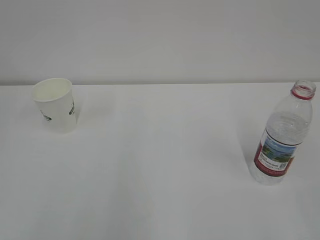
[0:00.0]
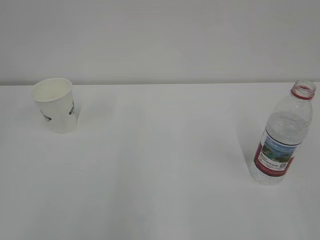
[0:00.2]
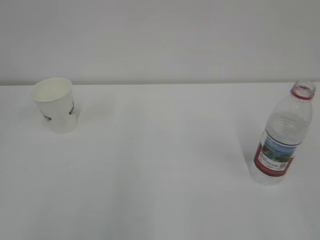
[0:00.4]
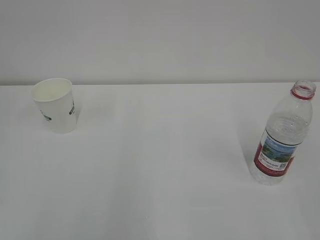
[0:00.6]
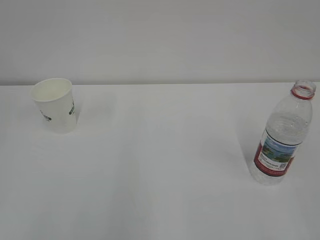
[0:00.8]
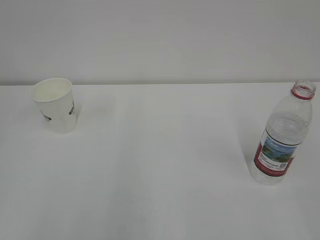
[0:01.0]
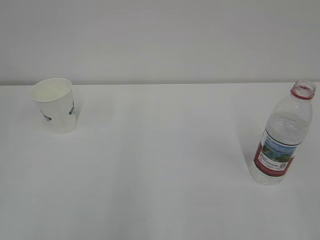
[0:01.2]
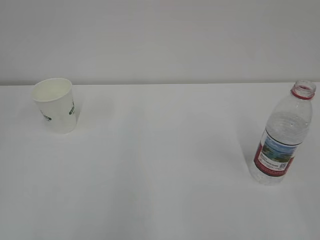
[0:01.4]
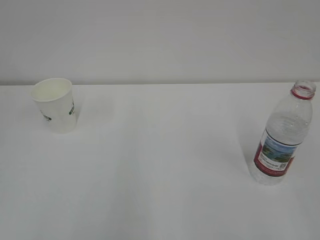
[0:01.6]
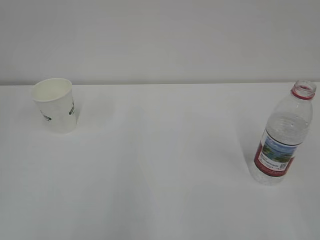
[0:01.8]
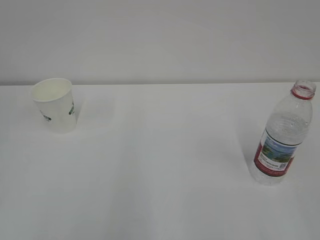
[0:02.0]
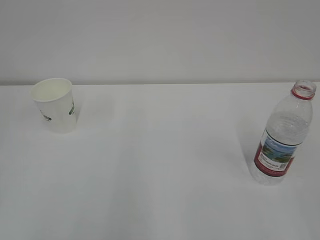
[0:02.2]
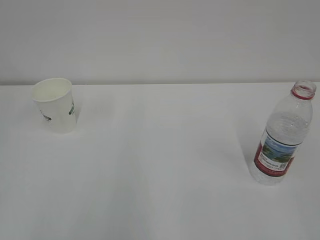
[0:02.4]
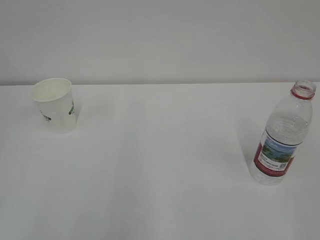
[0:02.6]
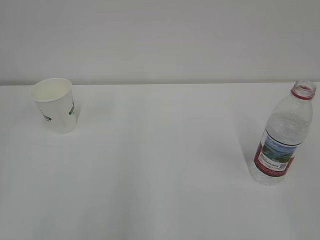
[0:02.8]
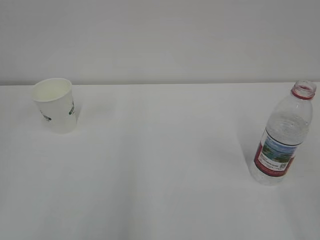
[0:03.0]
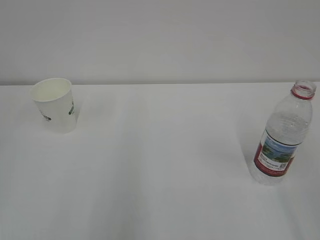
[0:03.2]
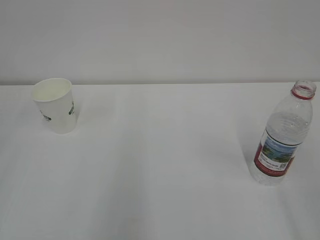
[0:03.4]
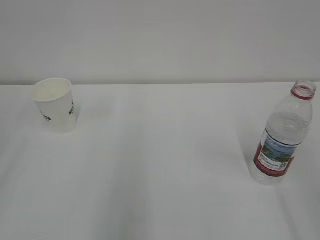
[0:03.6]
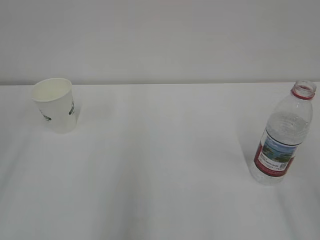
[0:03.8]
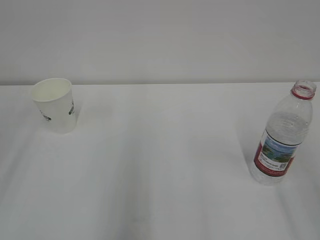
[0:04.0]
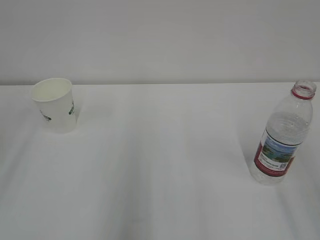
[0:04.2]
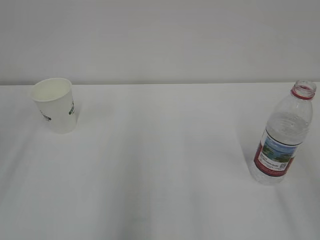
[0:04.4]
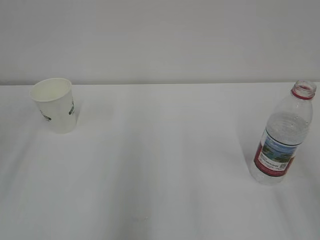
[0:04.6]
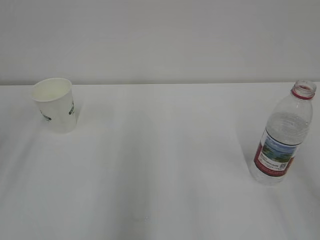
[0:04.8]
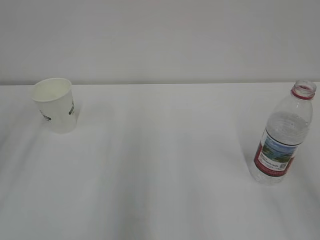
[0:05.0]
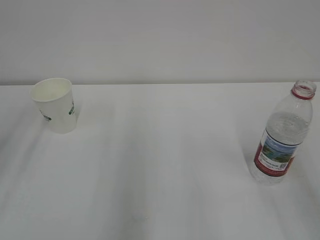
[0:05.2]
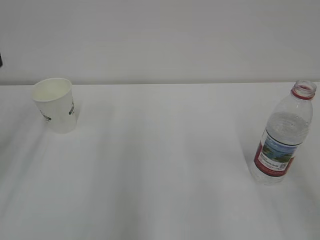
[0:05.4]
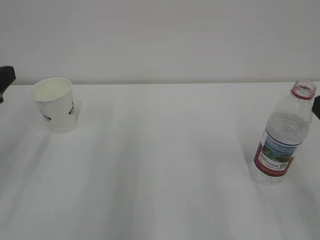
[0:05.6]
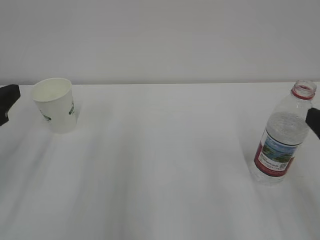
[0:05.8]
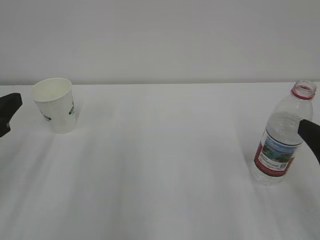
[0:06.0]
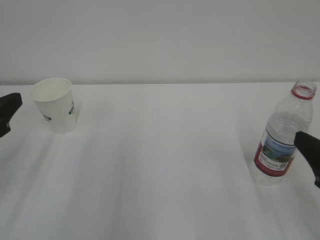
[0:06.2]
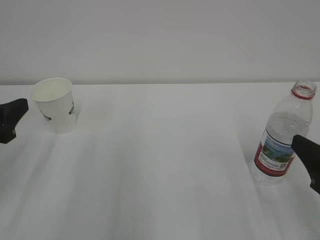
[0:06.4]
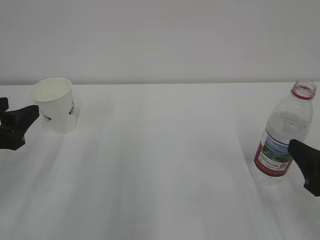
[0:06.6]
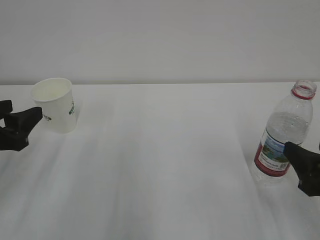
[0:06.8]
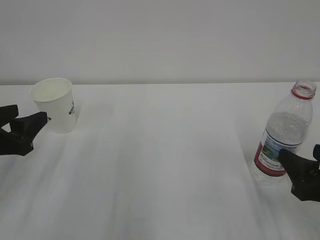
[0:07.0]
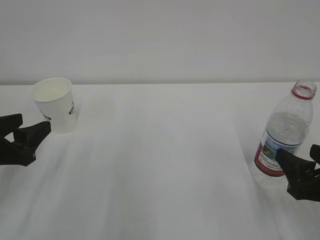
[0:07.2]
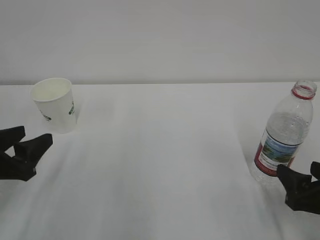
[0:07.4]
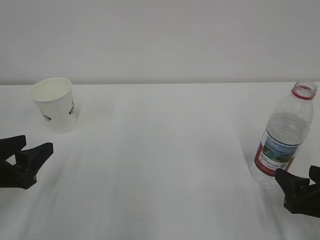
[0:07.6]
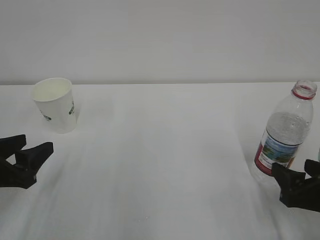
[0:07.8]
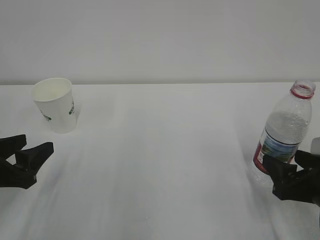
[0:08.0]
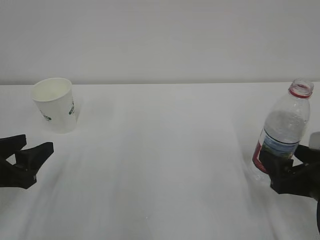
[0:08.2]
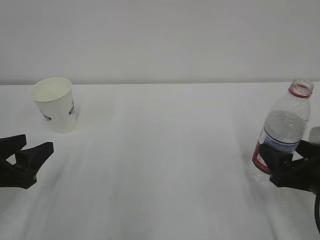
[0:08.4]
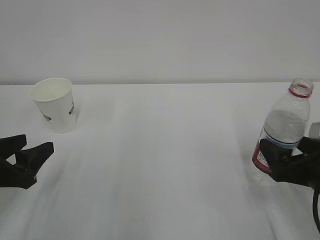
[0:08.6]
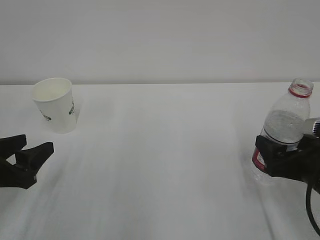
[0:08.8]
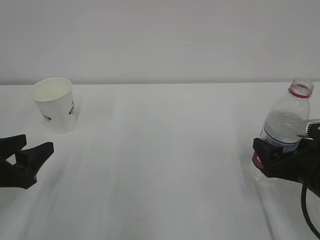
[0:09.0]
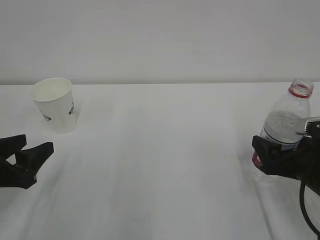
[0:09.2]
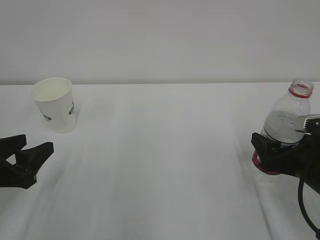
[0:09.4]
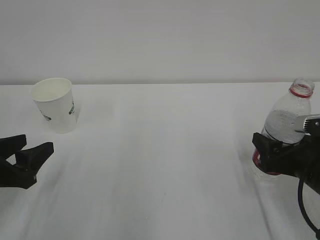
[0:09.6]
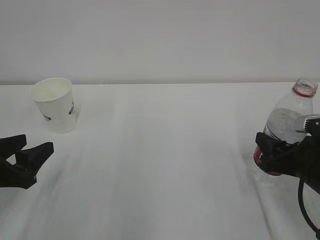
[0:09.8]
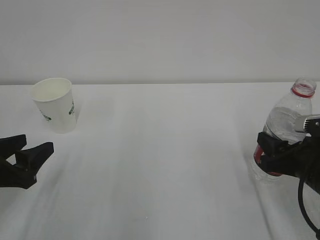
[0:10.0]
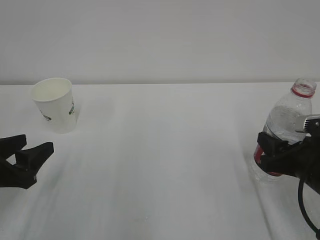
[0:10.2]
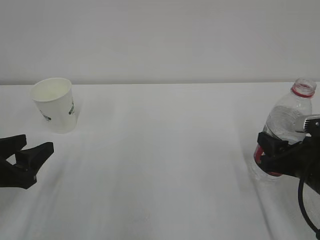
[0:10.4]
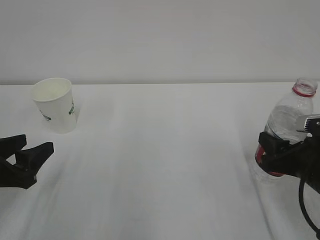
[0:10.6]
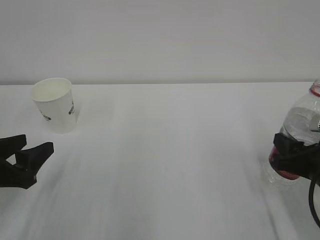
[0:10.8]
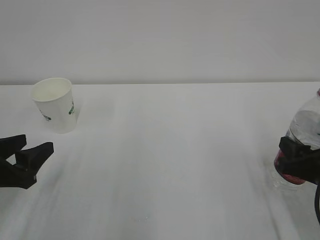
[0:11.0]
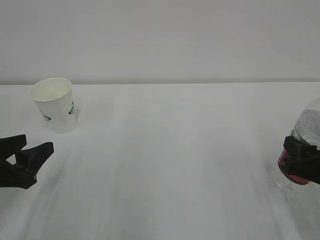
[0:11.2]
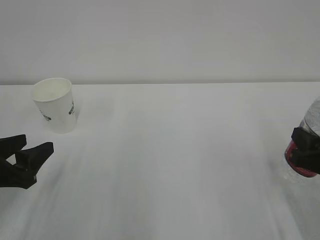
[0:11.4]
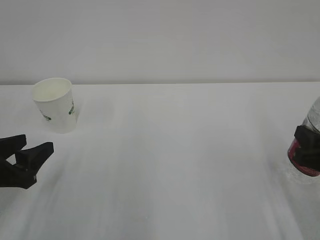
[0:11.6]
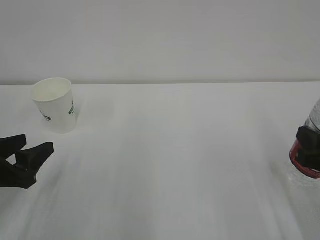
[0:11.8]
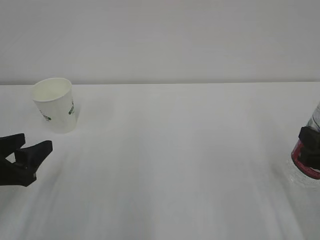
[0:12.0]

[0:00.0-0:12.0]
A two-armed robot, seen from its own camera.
0:04.4 to 0:06.0: Both grippers travel together downward and forward, approximately 15 cm.
0:06.0 to 0:07.6: The two grippers go approximately 10 cm downward.
0:07.6 to 0:09.0: The right gripper heads forward, covering approximately 5 cm.
0:09.0 to 0:10.4: The right gripper closes its fingers.
0:10.4 to 0:12.0: The right gripper changes place by some 5 cm.

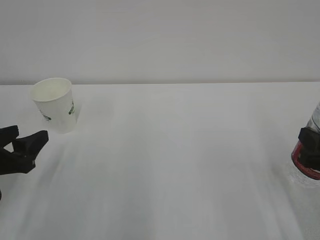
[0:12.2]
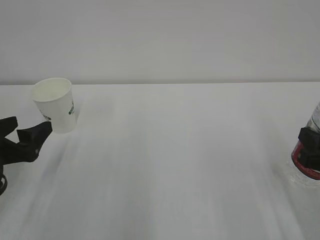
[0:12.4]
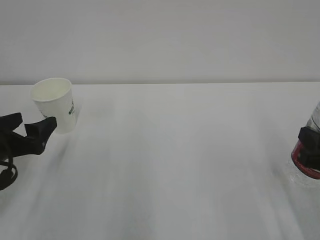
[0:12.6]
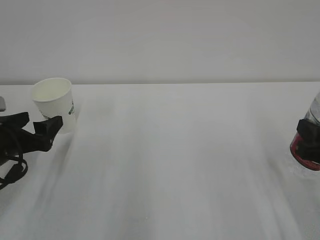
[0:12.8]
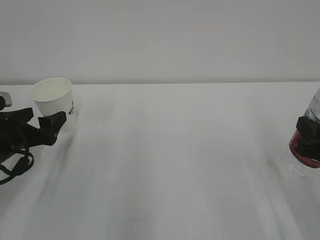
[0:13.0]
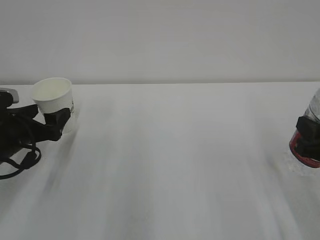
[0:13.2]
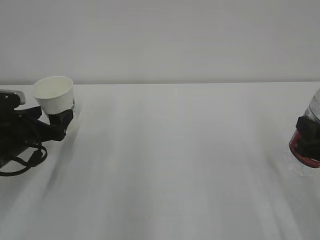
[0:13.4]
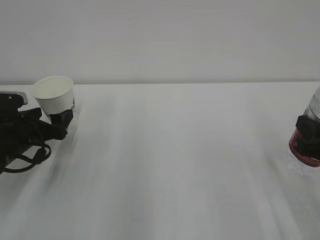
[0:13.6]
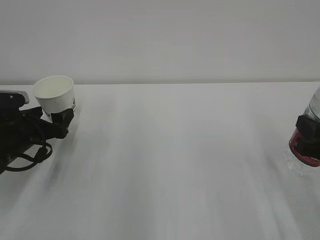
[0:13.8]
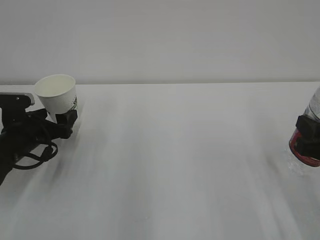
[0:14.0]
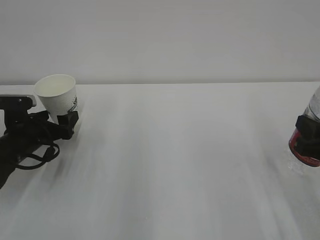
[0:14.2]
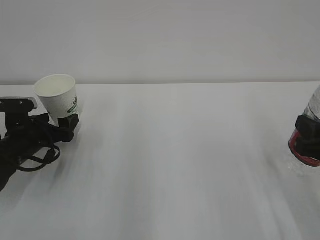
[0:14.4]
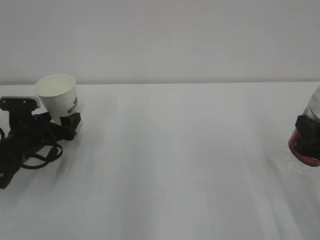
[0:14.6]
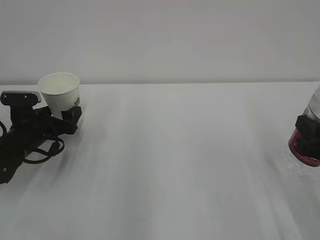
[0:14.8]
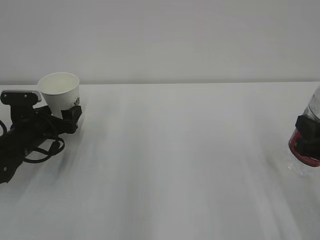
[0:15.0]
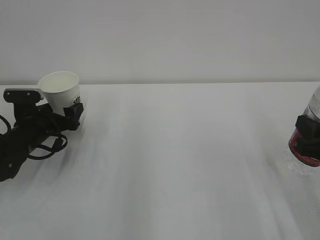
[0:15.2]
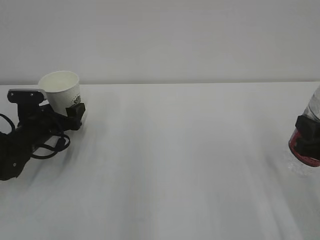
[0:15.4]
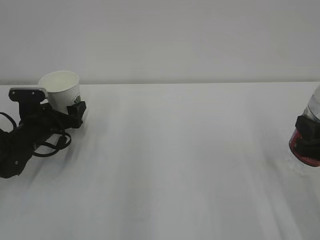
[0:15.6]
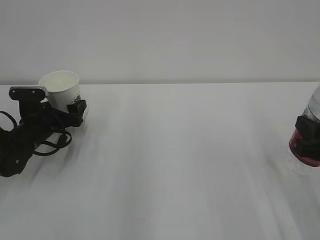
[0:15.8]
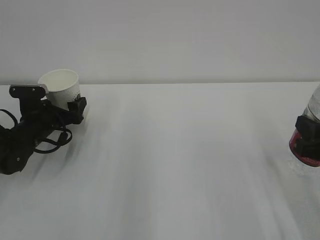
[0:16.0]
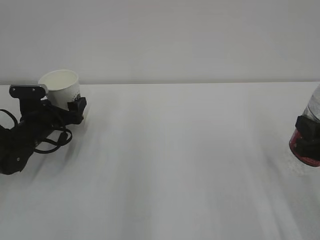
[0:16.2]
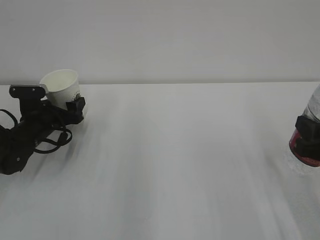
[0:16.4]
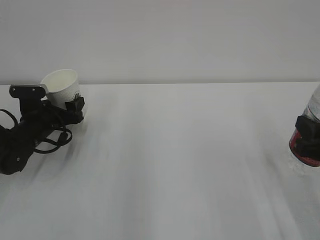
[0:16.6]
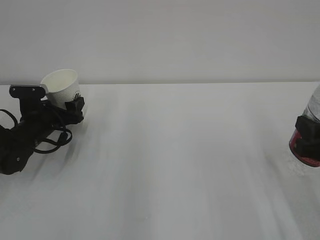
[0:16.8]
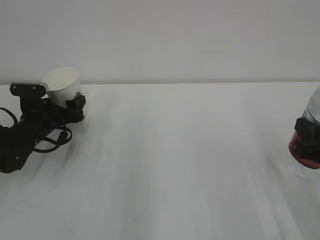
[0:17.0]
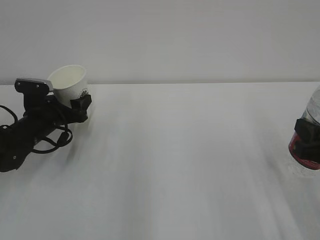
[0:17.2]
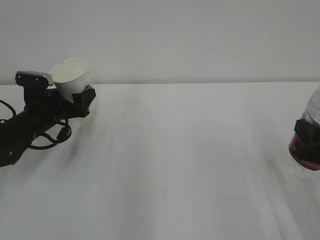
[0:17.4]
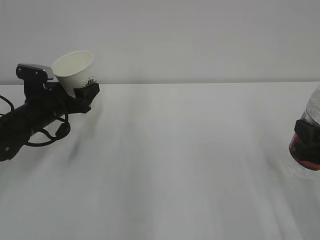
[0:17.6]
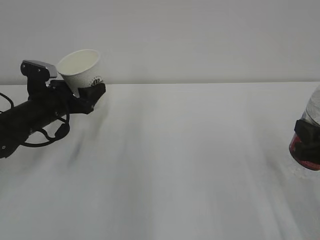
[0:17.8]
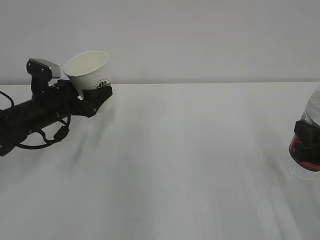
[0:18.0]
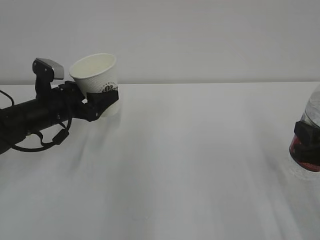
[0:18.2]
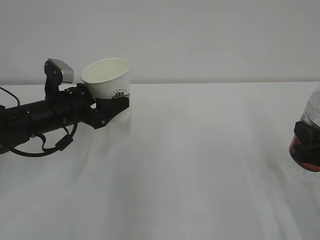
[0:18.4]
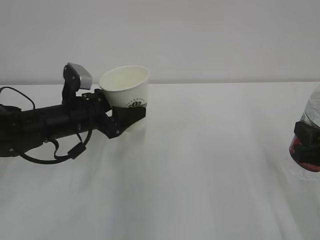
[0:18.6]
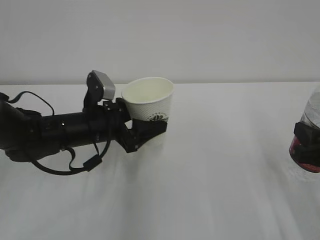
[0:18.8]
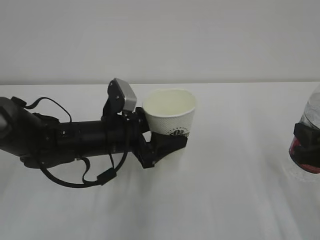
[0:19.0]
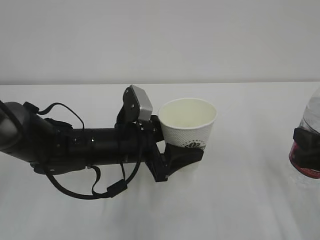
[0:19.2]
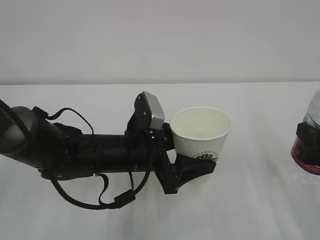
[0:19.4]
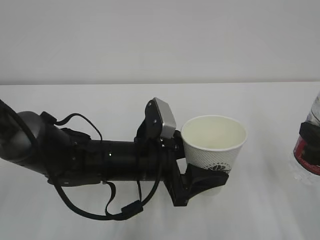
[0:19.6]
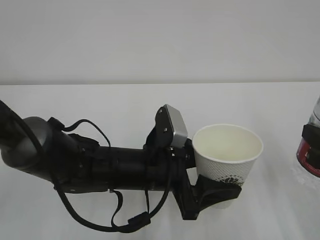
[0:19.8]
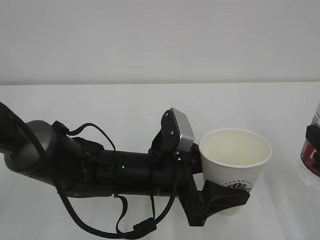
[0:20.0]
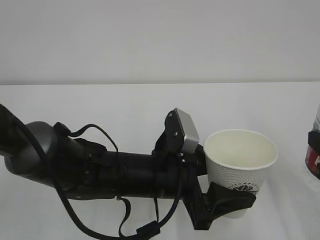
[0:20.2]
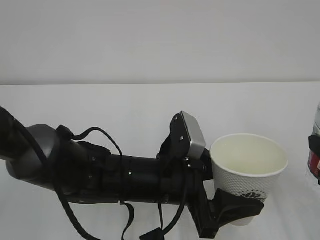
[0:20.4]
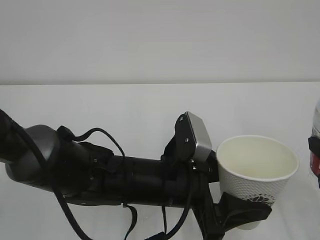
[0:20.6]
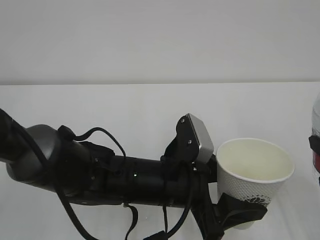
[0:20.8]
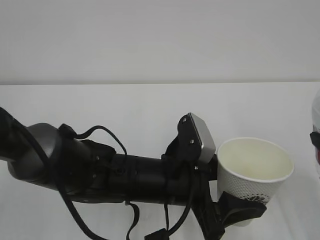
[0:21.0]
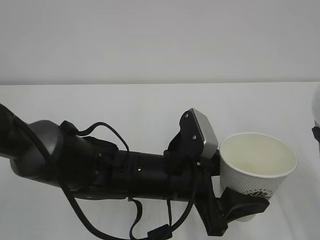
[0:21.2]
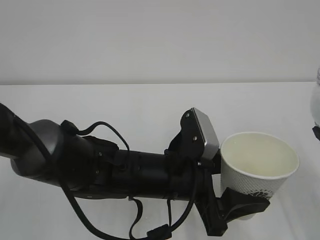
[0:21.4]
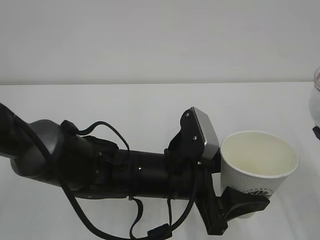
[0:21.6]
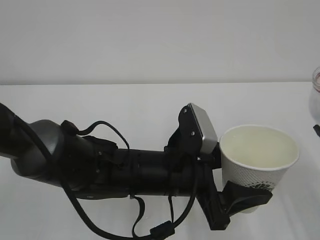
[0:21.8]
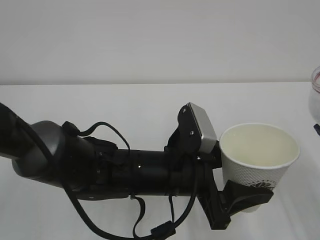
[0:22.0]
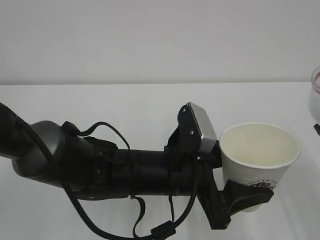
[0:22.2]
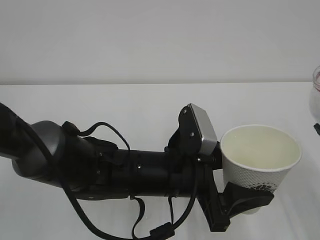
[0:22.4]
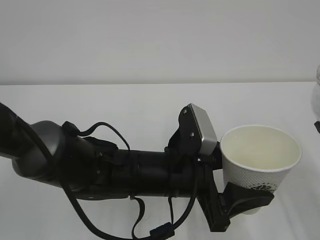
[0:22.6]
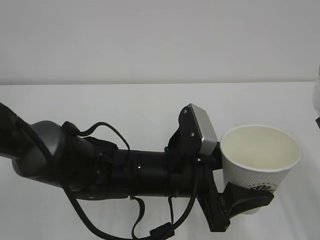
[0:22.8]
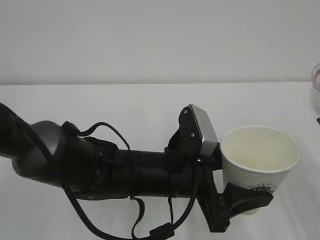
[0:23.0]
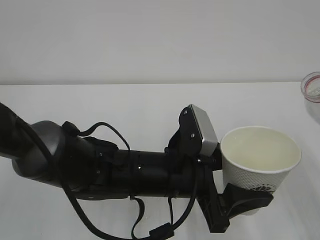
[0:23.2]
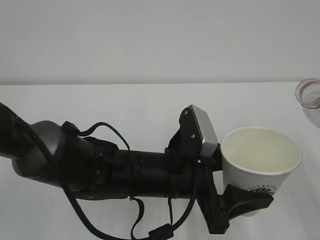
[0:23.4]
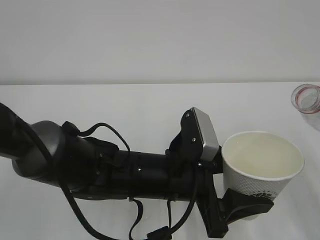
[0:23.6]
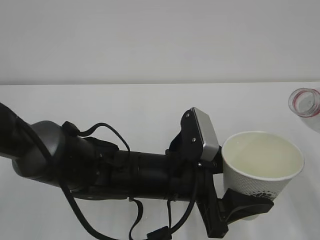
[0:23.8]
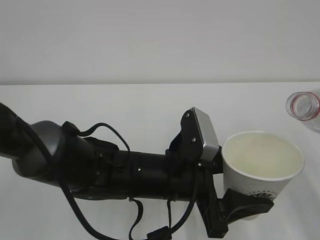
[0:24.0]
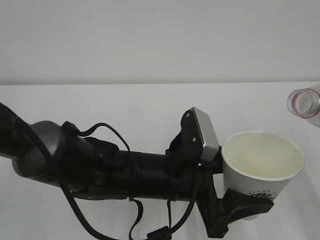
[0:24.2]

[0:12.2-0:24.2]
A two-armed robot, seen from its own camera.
0:12.2 to 0:13.8: The left gripper travels forward by roughly 10 cm, and opens its fingers.
0:13.8 to 0:15.2: The left gripper changes place by about 5 cm.
0:15.2 to 0:16.6: The left gripper closes its fingers.
0:16.6 to 0:18.2: The left gripper heads upward, covering some 5 cm.
0:18.2 to 0:19.8: The left gripper moves to the right and backward, about 25 cm.
0:21.2 to 0:22.6: The grippers make only small movements.
